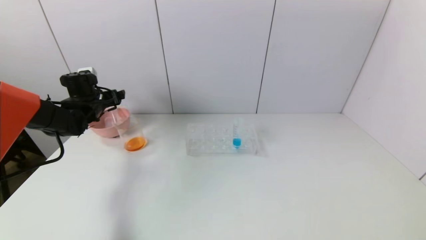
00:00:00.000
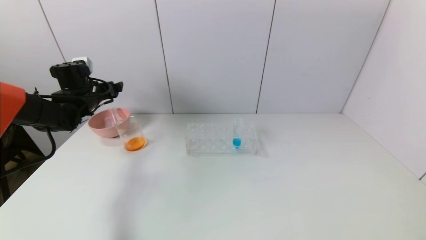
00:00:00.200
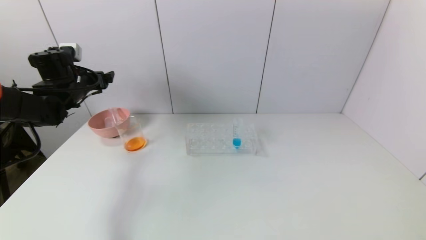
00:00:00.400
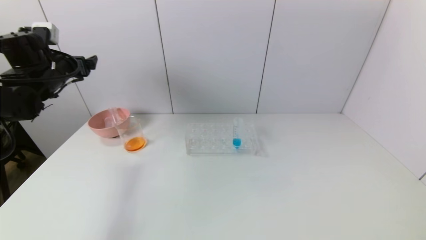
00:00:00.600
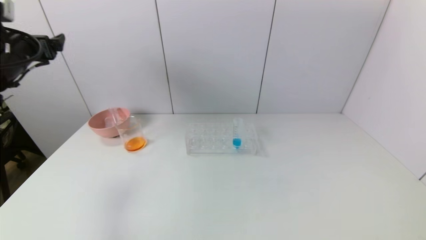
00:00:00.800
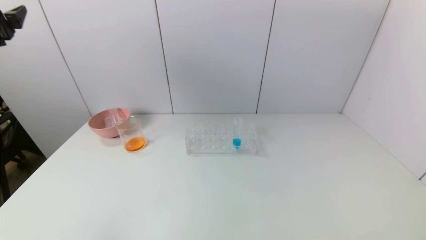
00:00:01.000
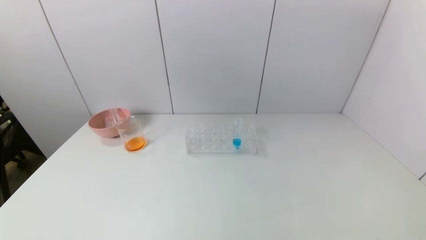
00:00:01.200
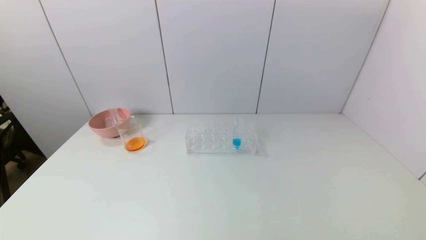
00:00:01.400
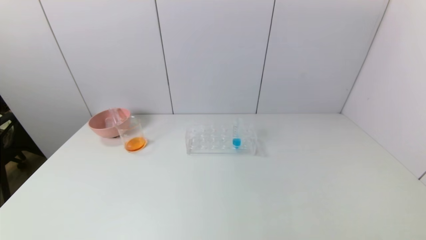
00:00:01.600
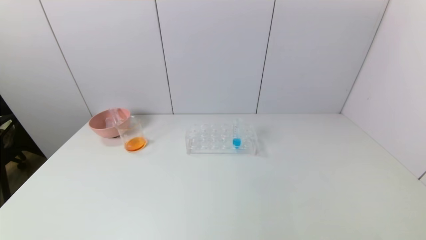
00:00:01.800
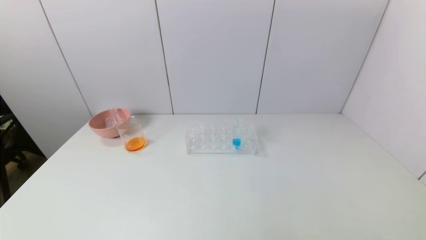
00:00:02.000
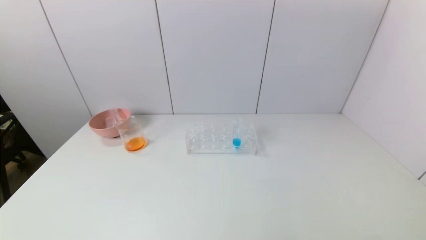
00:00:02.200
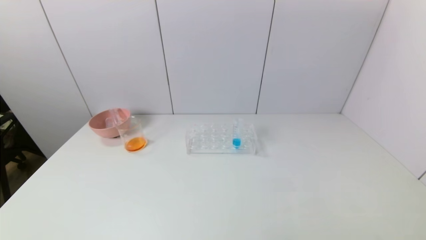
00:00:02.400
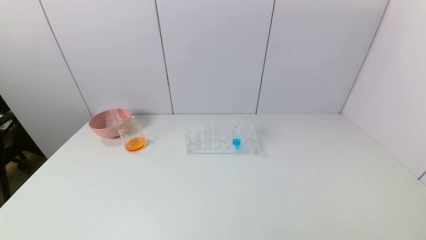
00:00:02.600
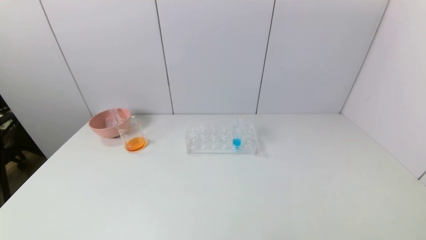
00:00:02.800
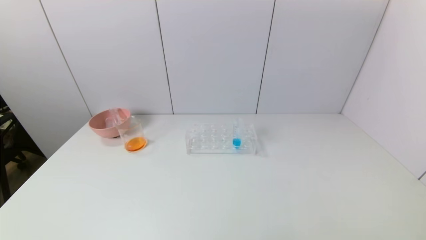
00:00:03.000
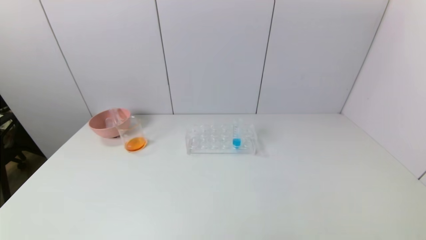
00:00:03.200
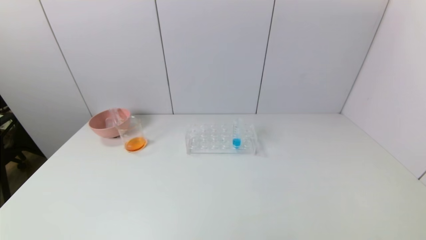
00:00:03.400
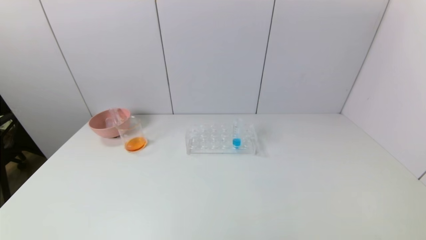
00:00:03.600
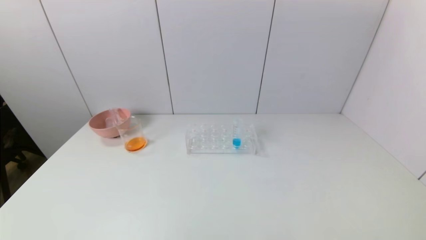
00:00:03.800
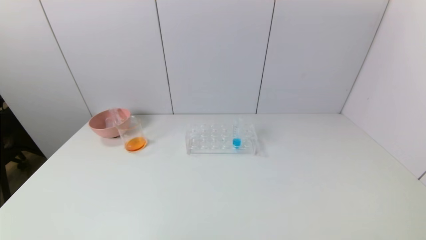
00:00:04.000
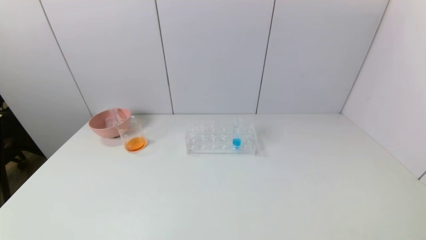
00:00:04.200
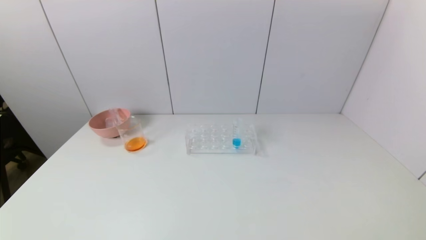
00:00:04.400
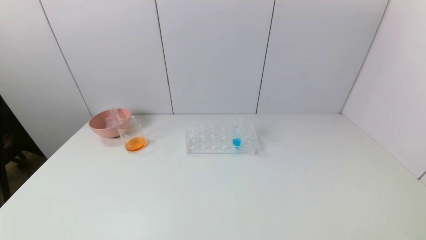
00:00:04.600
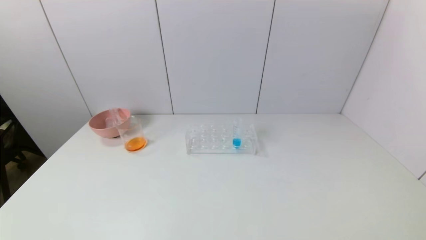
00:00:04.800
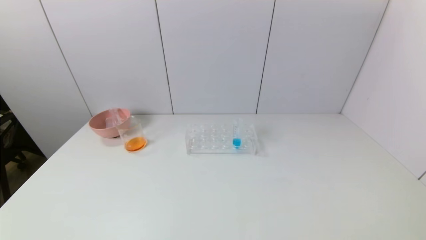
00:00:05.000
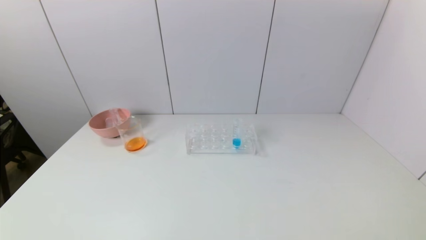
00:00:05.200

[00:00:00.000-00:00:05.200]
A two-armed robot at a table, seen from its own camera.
Task of the whole recording: pick up the test tube with yellow pigment and the test tube with red pigment by grippers and pour them into the beaker.
00:00:00.000 to 00:00:01.800: The left gripper moves backward, some 40 cm.
